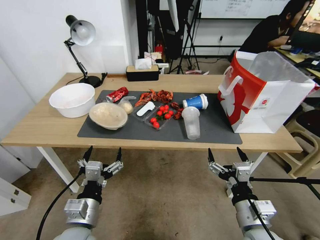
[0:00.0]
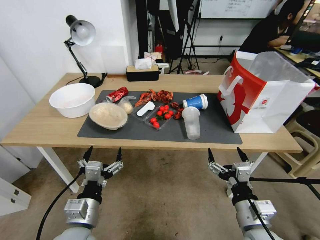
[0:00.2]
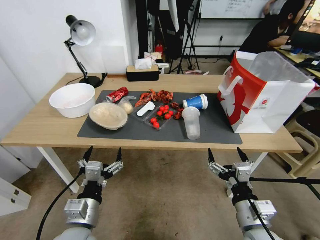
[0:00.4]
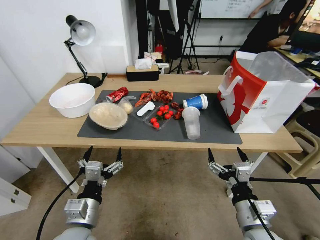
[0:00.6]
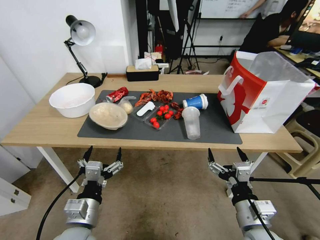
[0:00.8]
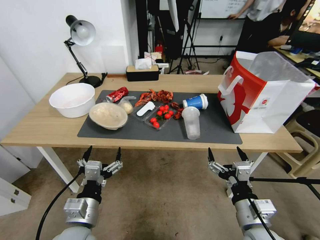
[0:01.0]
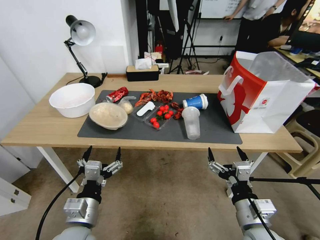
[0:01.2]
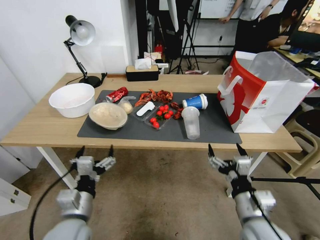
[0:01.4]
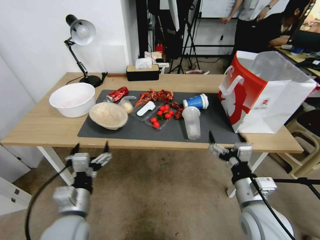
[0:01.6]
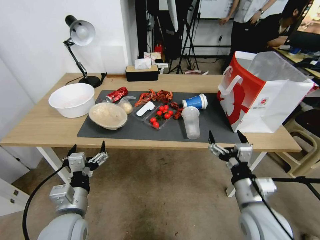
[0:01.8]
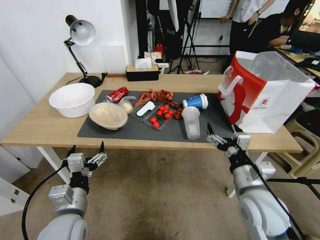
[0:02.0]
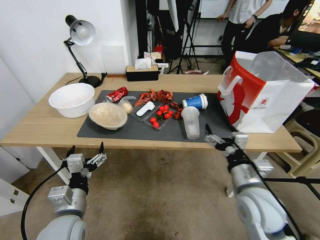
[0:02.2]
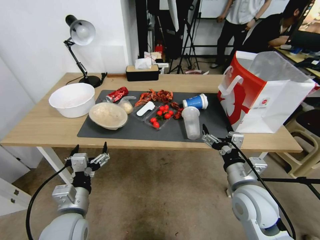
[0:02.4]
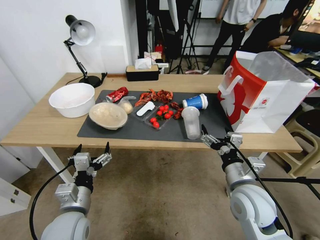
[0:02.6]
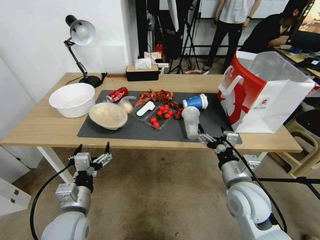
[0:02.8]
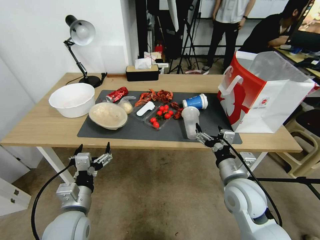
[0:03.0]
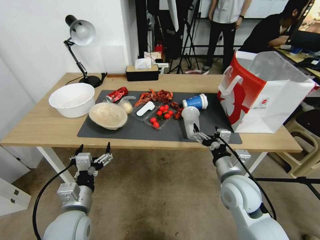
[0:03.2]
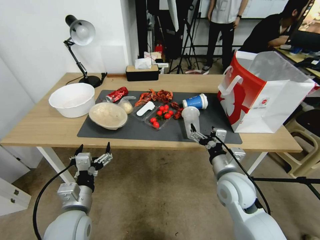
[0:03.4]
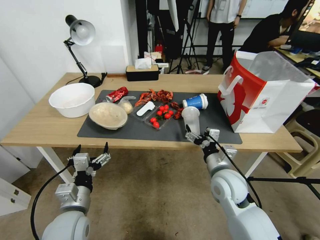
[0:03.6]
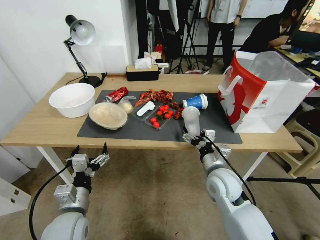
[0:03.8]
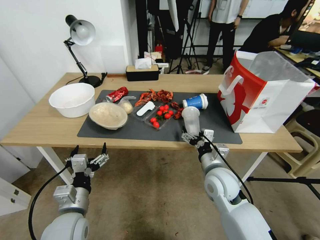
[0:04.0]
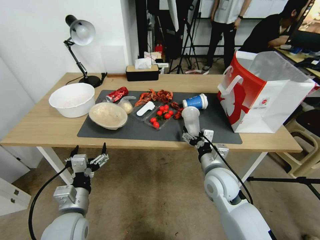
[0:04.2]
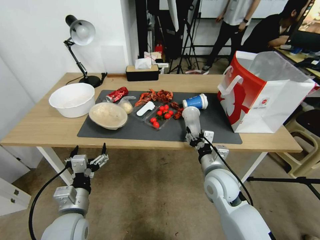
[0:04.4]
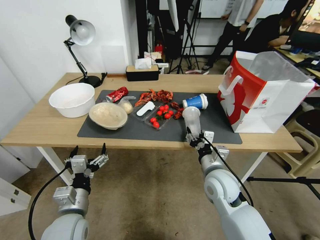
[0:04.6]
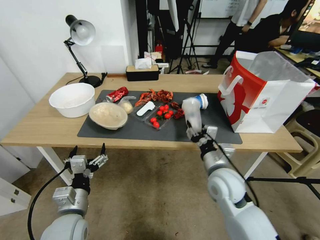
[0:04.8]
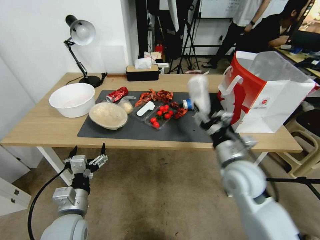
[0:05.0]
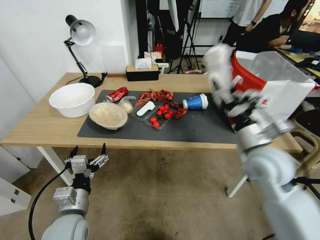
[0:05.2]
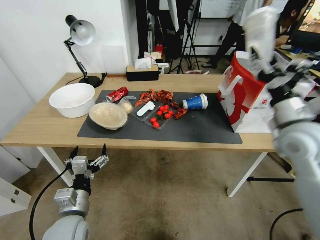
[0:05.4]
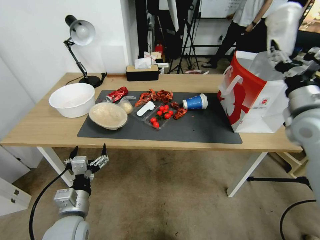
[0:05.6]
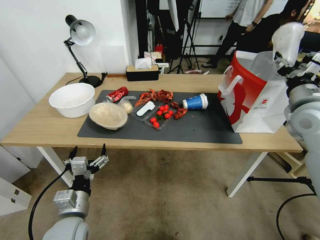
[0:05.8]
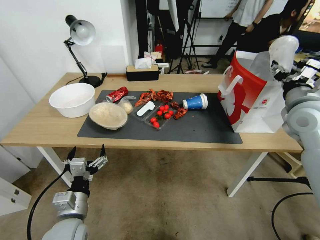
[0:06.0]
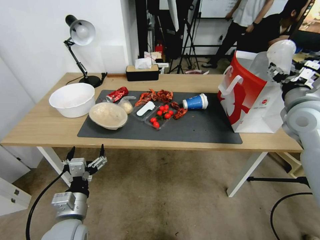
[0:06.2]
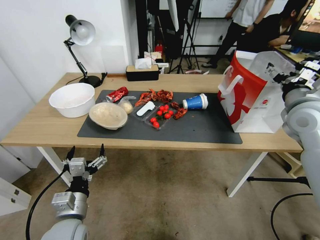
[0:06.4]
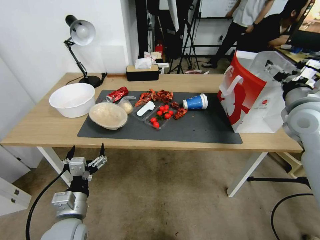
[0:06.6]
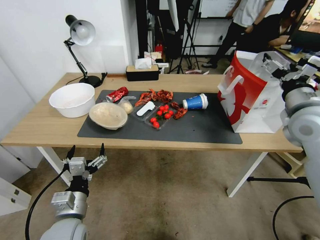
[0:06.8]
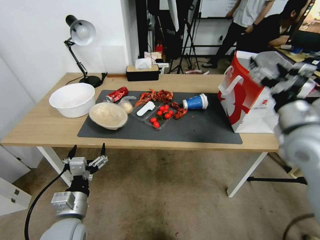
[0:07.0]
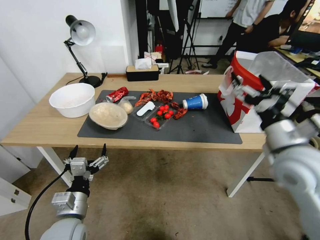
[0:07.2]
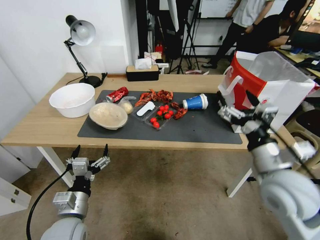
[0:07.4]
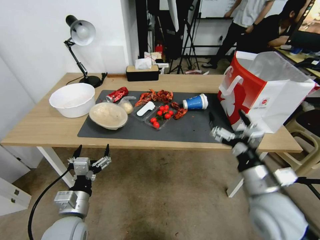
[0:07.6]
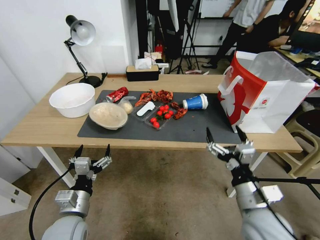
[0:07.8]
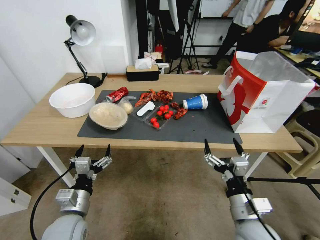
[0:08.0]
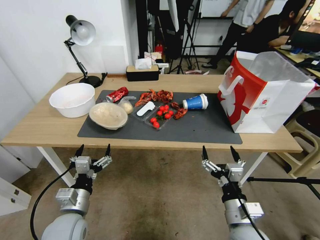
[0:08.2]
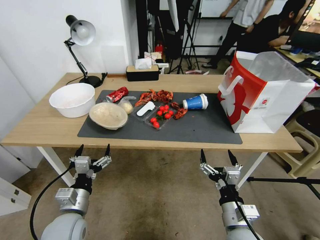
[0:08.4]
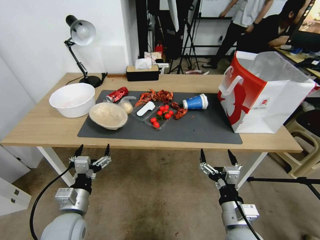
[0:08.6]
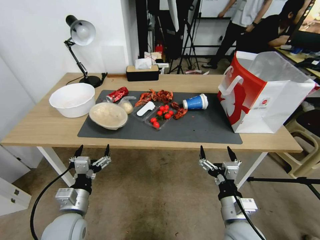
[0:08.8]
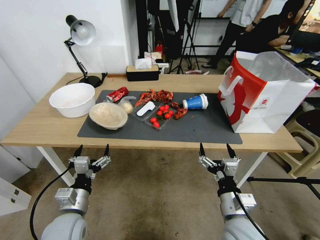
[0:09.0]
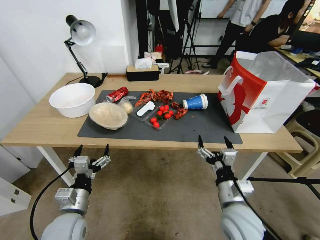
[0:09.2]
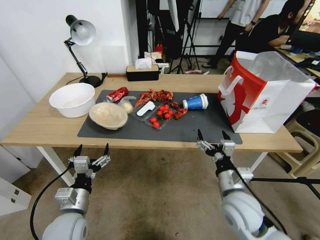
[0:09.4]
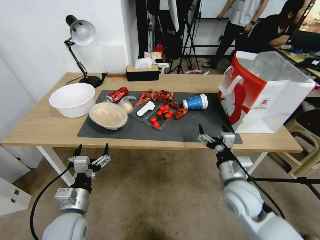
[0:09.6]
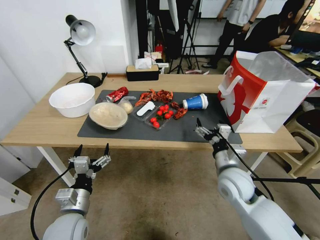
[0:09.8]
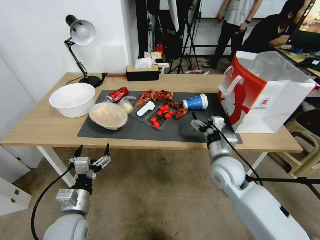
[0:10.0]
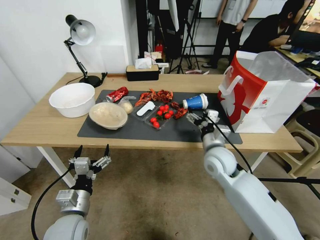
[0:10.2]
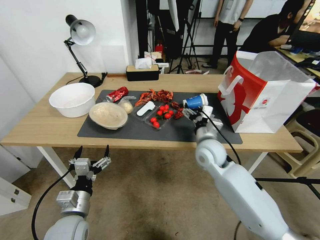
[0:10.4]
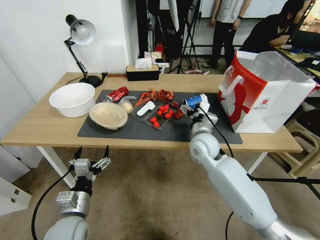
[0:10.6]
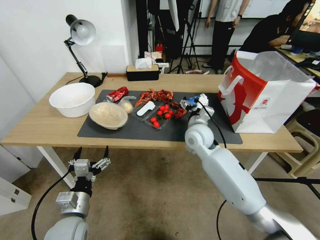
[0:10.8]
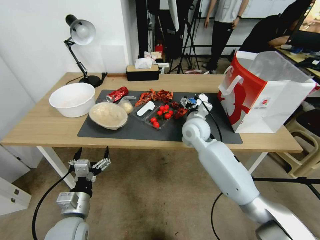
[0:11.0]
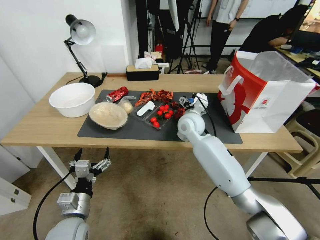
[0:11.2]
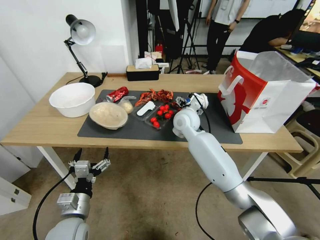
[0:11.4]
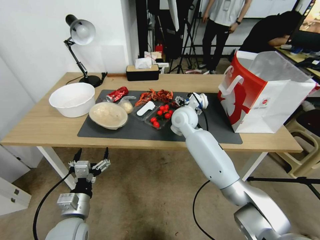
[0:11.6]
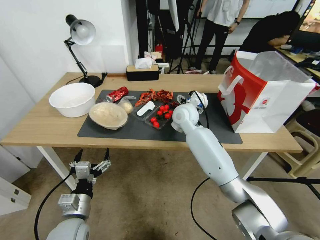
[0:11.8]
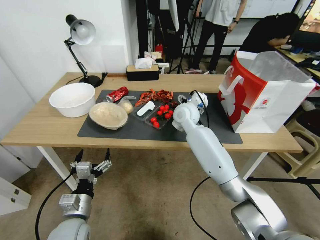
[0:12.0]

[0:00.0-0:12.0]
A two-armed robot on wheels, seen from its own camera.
0:01.6 to 0:03.0: The right gripper heads forward, covering about 10 cm.
0:03.0 to 0:04.4: The right gripper moves roughly 5 cm, and closes its fingers.
0:04.4 to 0:06.0: The right gripper heads upward and to the right, covering about 30 cm.
0:06.0 to 0:07.6: The right gripper moves backward, to the left and downward, approximately 20 cm, and opens up.
0:07.6 to 0:09.0: The right gripper heads downward, to the left and backward, covering roughly 15 cm.
0:09.0 to 0:10.4: The right gripper moves forward, some 20 cm.
0:10.4 to 0:12.0: The right gripper moves forward, to the left and upward, about 15 cm.

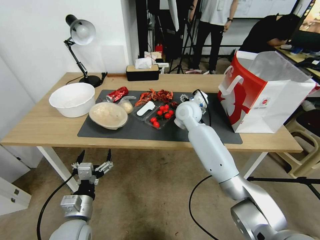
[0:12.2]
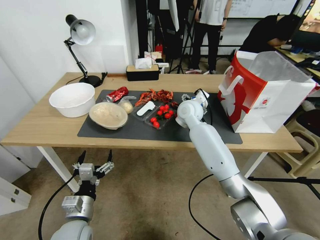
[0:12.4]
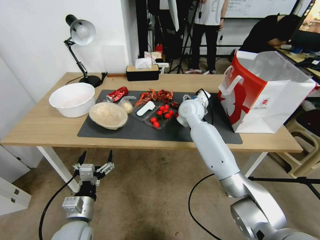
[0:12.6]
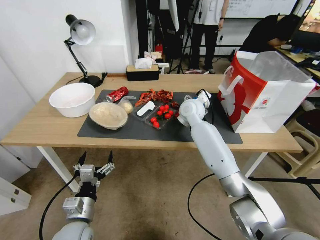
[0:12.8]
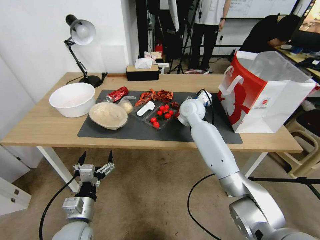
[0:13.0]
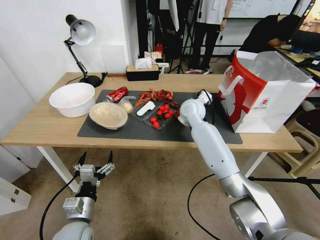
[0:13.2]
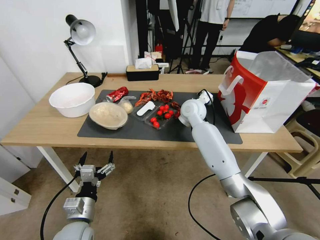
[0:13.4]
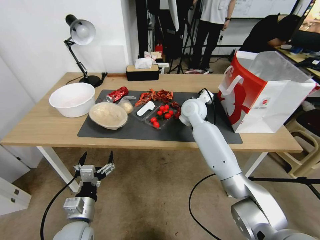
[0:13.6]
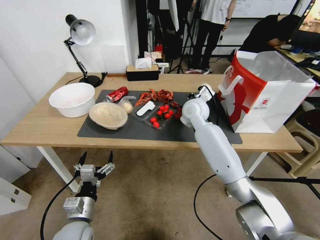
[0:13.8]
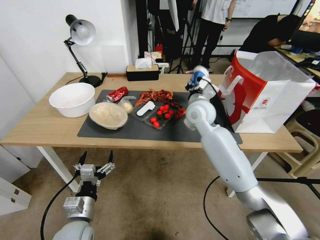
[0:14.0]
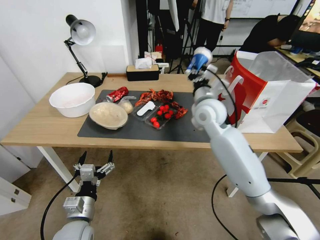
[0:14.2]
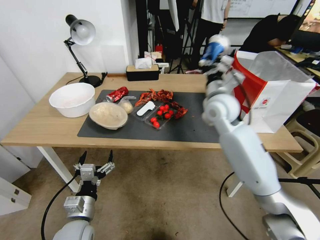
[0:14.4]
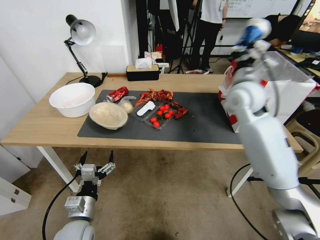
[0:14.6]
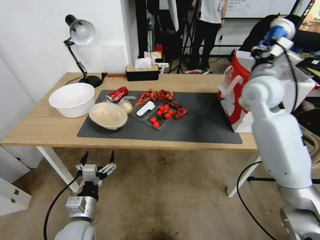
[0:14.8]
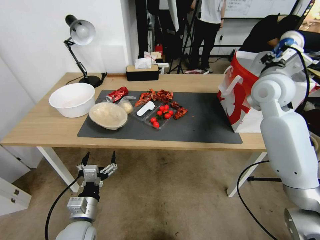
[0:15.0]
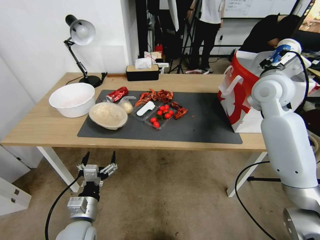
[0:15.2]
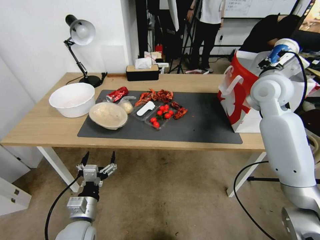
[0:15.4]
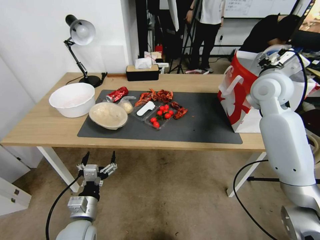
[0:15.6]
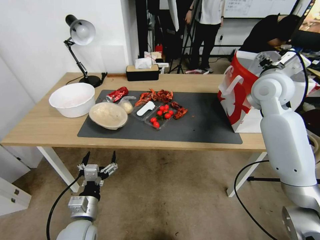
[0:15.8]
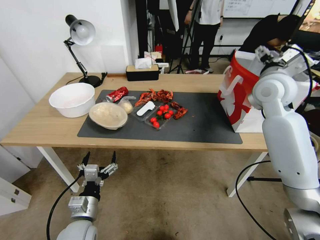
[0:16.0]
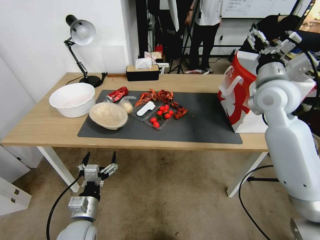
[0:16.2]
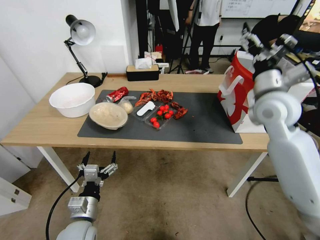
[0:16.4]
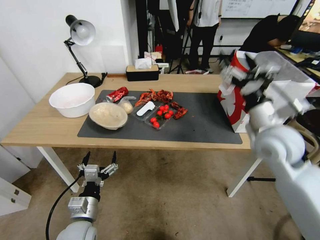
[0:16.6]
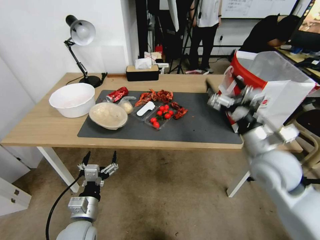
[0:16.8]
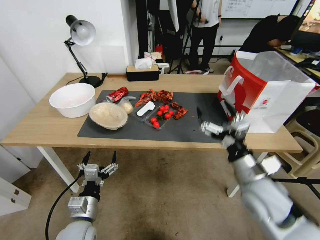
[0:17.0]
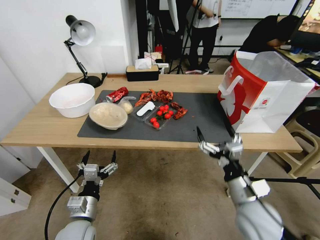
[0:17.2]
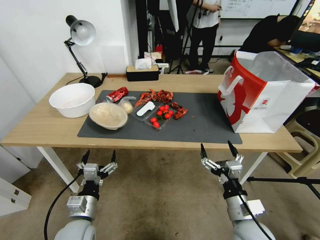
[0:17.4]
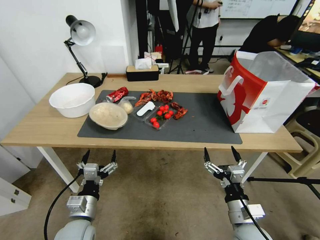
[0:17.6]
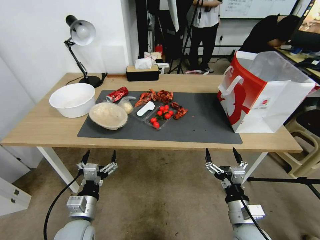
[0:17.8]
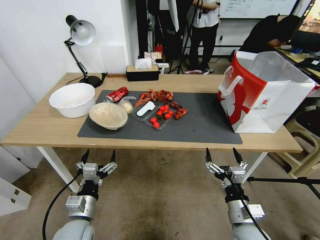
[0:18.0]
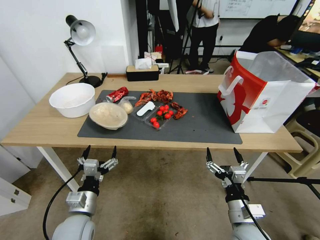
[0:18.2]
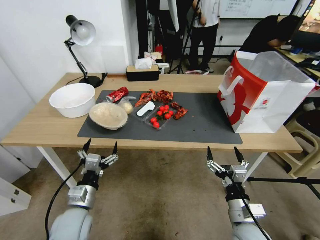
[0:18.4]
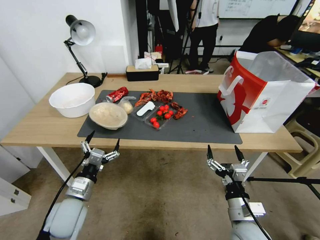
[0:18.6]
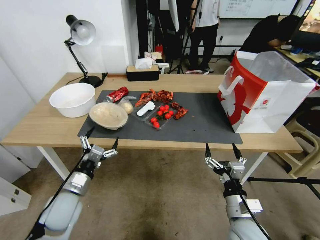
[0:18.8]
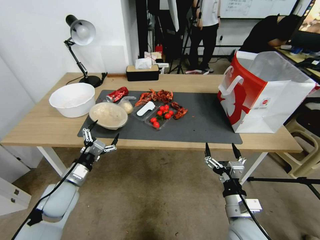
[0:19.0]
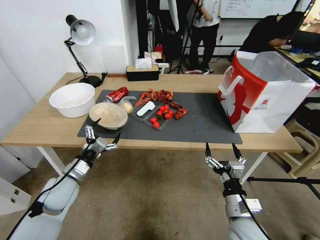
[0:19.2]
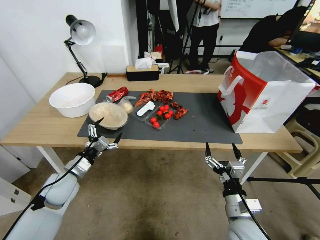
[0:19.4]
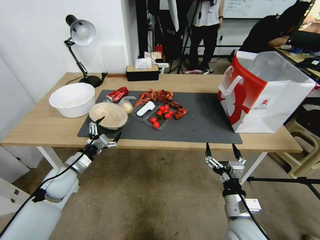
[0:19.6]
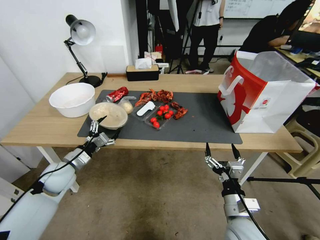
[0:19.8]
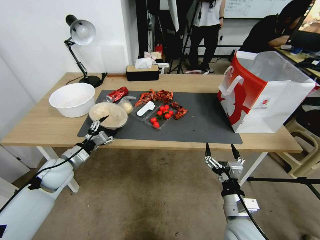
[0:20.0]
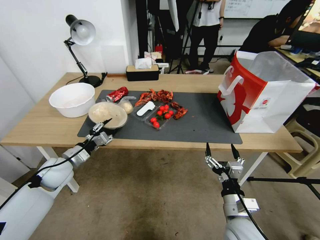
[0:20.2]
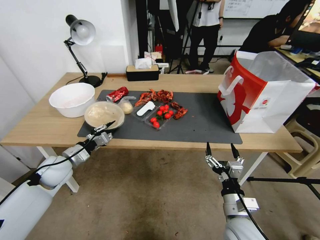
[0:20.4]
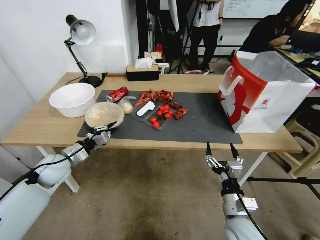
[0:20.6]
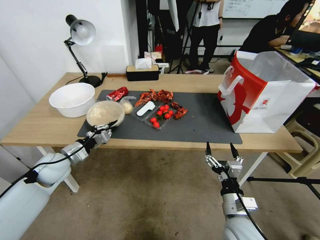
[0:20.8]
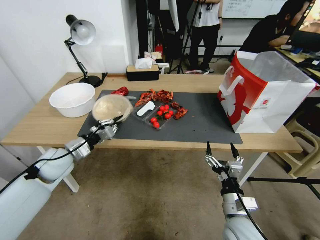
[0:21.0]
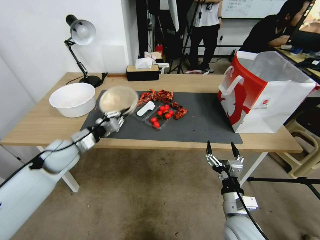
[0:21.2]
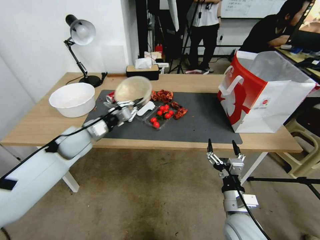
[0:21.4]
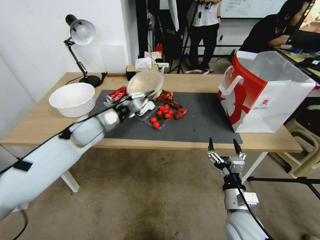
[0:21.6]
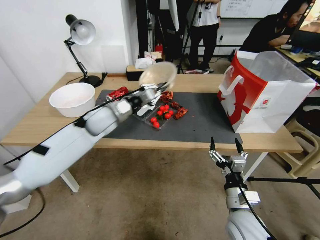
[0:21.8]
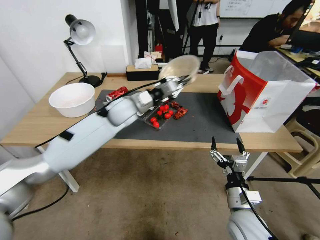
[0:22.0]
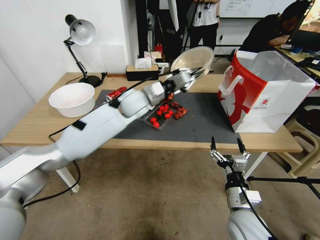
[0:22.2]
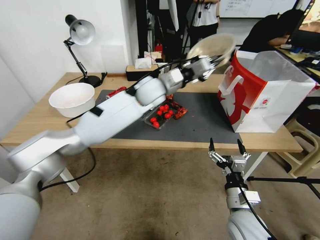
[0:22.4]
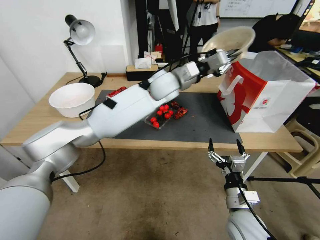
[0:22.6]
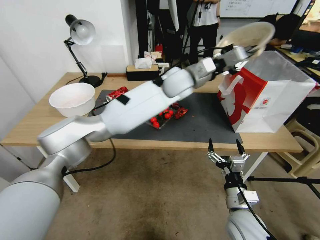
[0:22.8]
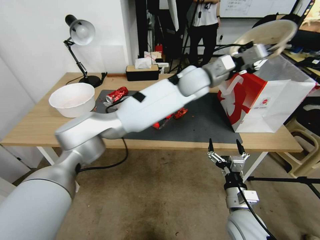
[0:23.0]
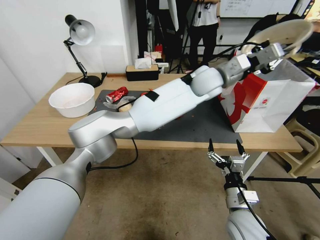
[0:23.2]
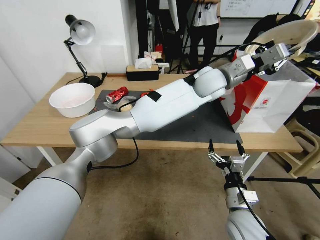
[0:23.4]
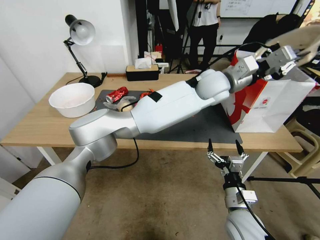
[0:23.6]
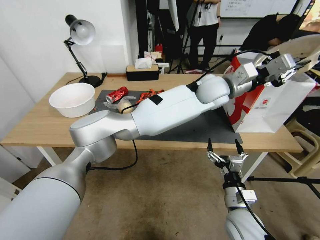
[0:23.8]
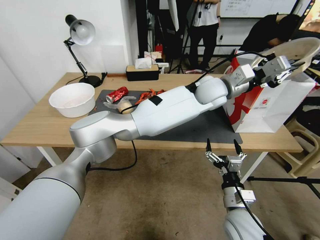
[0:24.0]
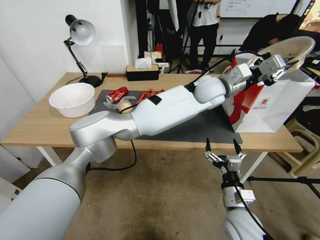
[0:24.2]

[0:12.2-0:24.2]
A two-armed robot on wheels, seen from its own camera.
0:12.2 to 0:13.8: The right gripper closes up.
0:13.8 to 0:15.2: The right gripper is displaced to the right and upward by roughly 20 cm.
0:15.2 to 0:16.6: The right gripper goes roughly 15 cm backward and downward, and opens up.
0:16.6 to 0:18.2: The right gripper goes about 30 cm downward and backward.
0:18.2 to 0:19.8: The left gripper heads forward and to the left, covering roughly 15 cm.
0:19.8 to 0:21.2: The left gripper heads upward and forward, covering roughly 10 cm, and closes its fingers.
0:21.2 to 0:22.6: The left gripper shifts about 40 cm to the right, forward and upward.
0:22.6 to 0:24.2: The left gripper shifts about 15 cm to the right.
